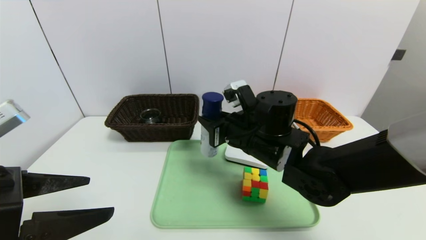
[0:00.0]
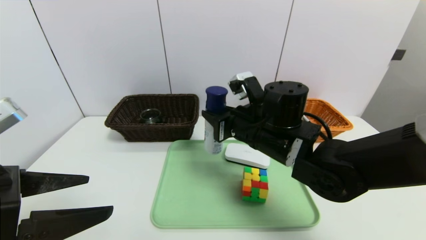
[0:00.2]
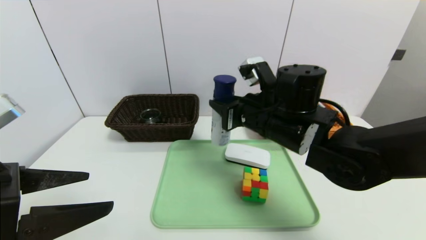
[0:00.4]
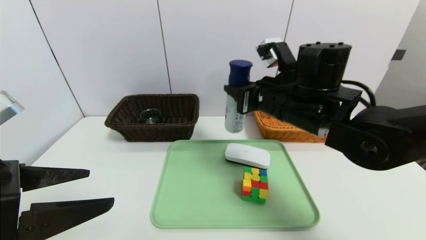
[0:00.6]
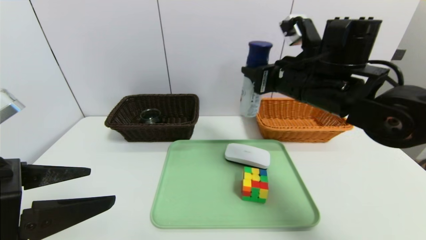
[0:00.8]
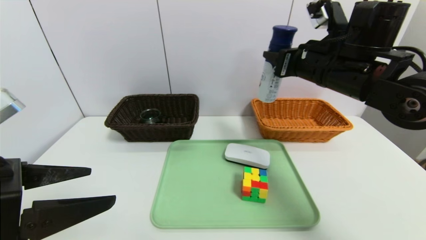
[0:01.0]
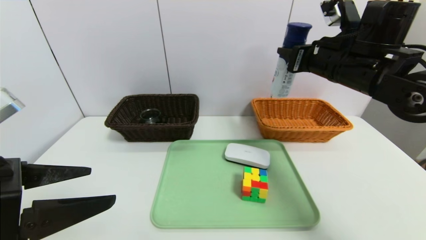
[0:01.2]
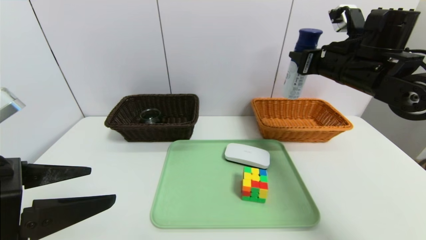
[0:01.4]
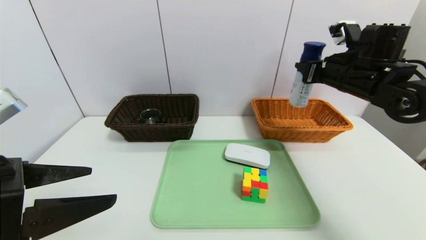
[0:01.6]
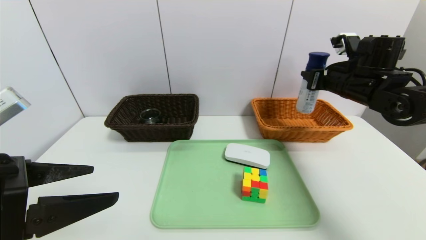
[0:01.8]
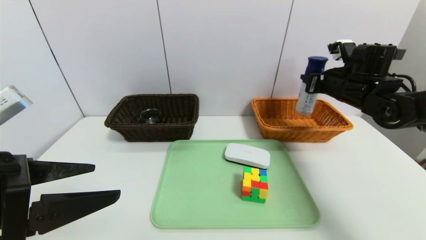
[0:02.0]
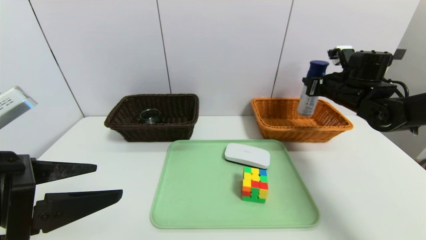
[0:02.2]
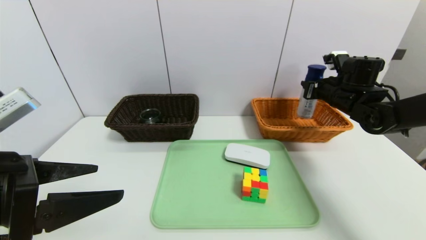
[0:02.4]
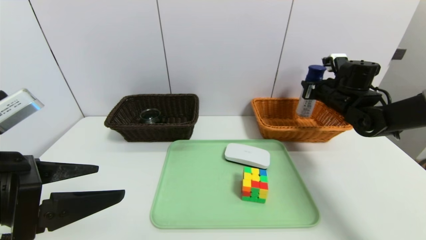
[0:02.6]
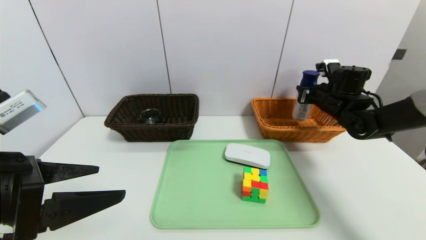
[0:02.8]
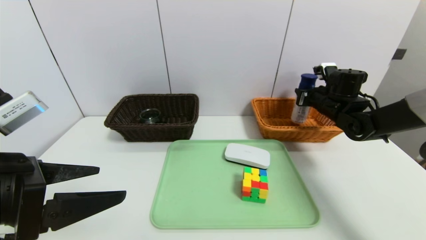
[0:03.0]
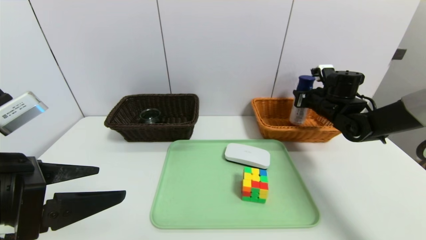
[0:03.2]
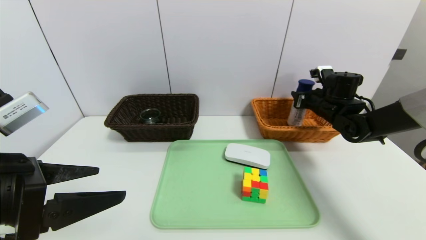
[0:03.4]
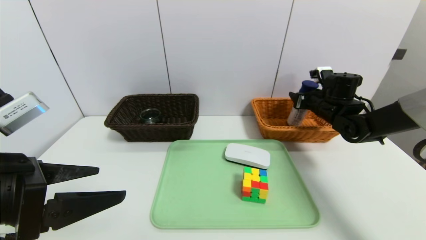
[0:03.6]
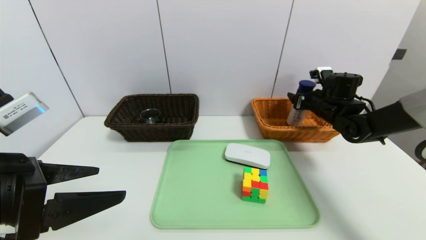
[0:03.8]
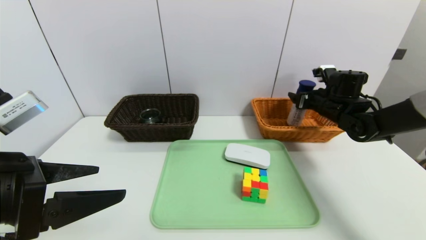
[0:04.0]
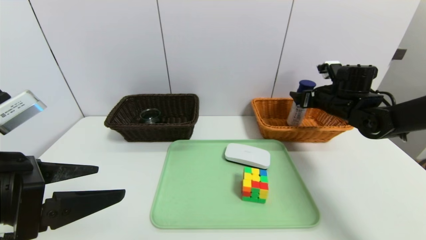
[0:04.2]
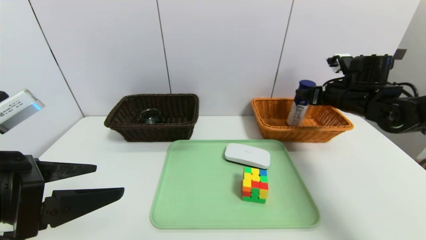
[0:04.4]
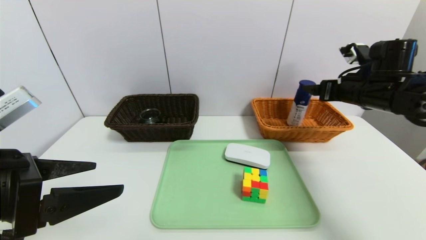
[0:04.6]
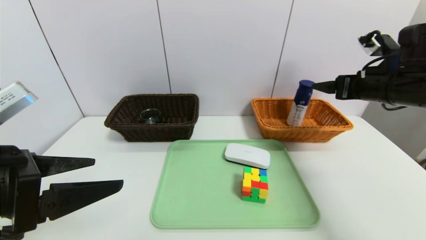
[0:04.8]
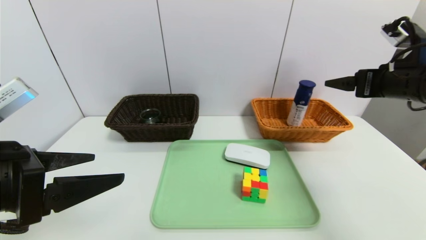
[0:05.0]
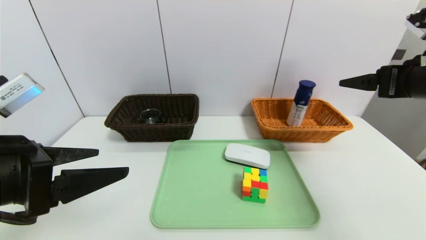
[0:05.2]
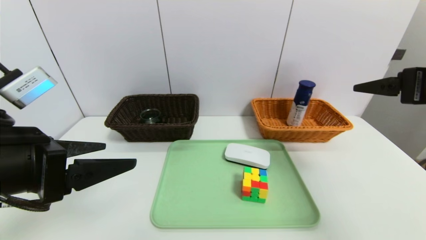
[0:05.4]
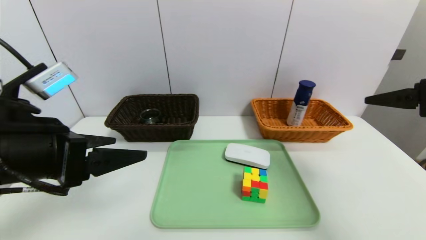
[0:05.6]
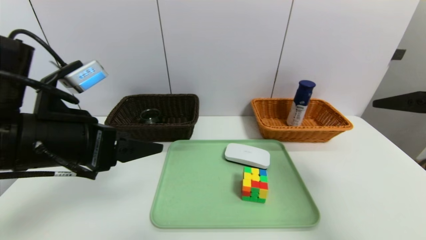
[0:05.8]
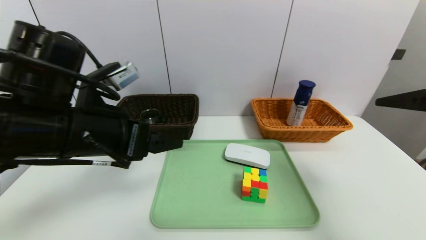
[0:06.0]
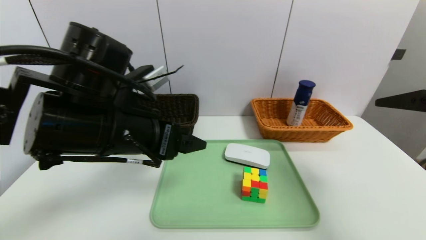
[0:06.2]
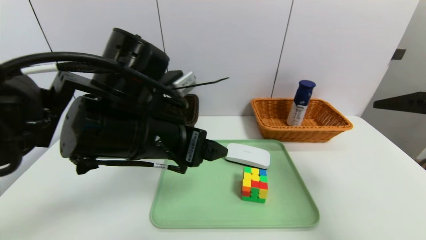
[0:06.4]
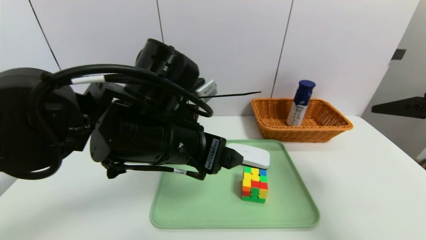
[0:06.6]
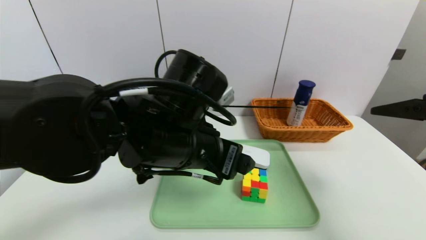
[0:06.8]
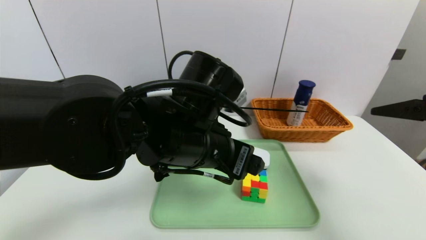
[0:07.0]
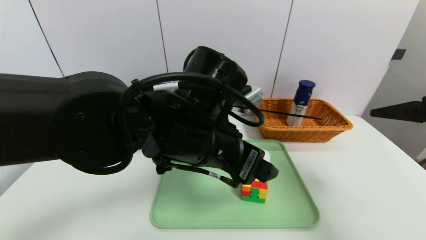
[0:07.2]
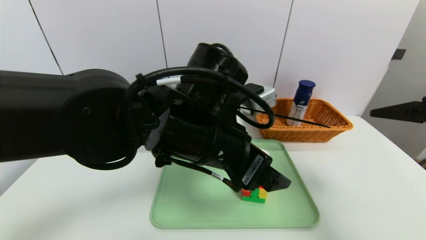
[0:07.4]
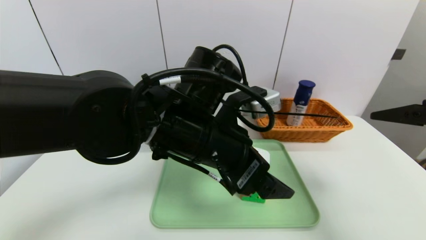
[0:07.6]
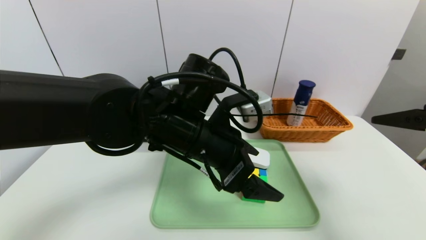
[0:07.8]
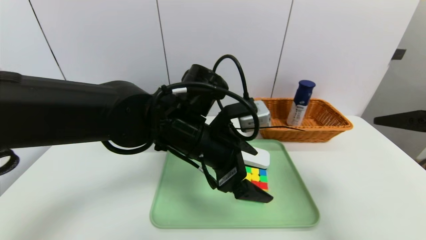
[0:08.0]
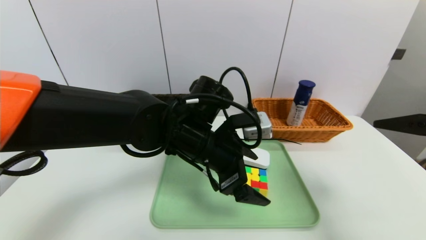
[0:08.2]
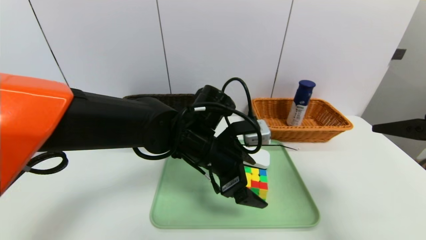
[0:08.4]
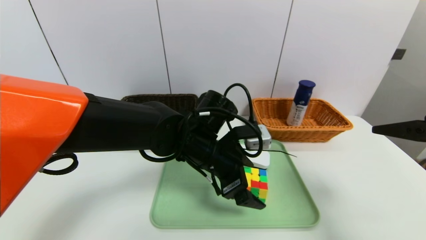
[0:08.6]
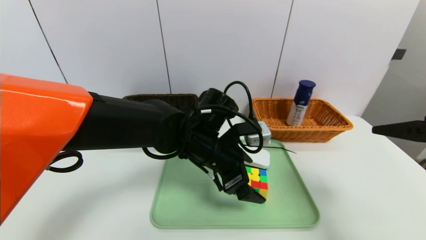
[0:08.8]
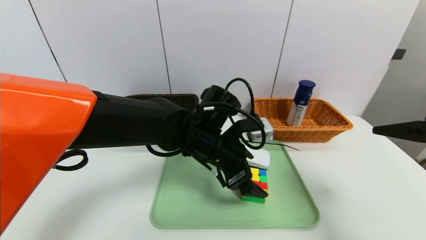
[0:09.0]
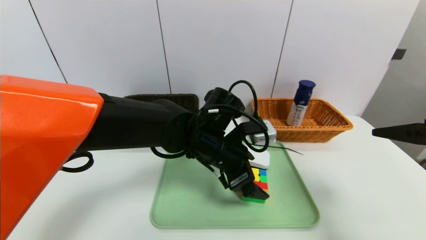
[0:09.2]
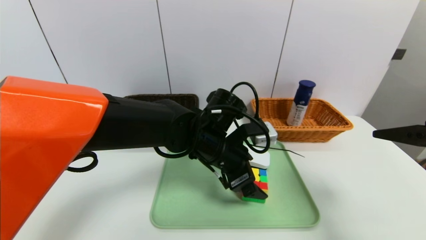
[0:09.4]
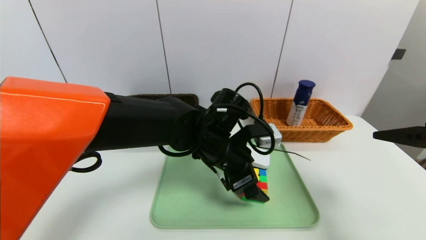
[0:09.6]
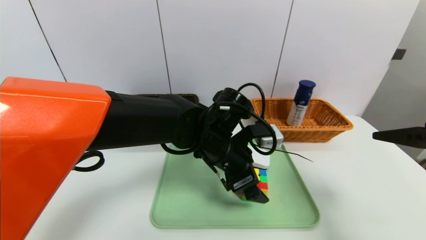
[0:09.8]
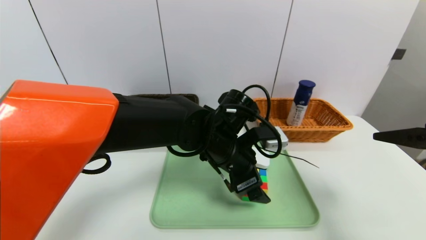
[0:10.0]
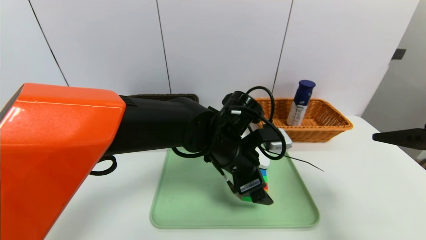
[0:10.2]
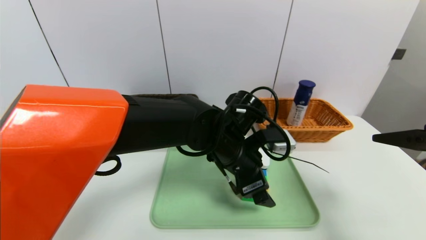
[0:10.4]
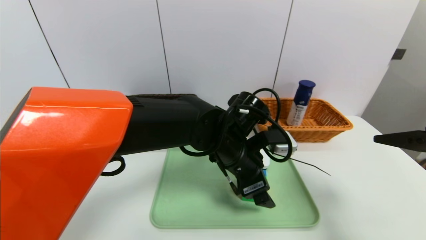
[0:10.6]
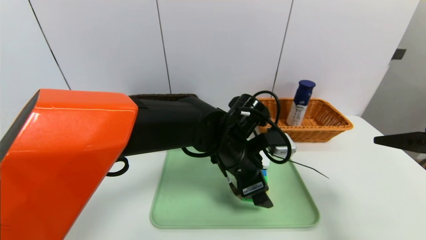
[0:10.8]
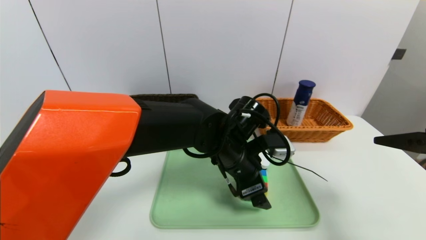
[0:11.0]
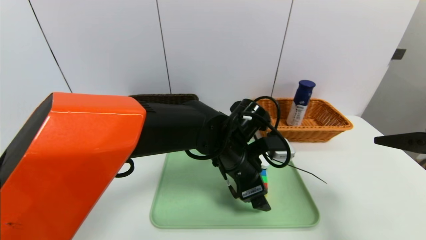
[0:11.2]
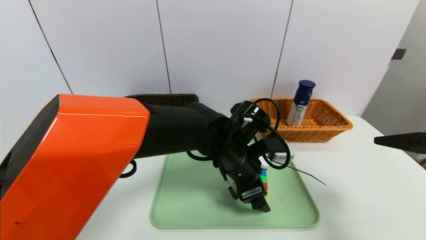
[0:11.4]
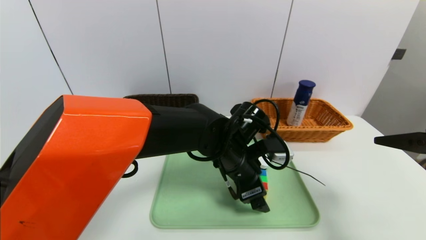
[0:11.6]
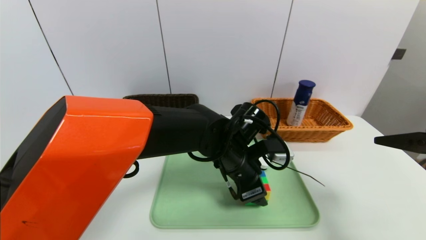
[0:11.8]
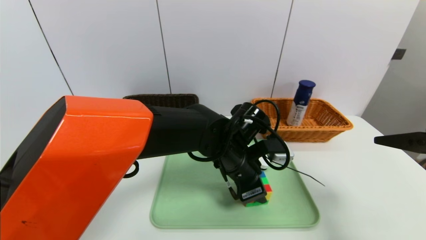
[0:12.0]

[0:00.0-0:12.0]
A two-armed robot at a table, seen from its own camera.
Task of the whole recording: place the food in the right basket with the right gripper, and place the non food items in the left basket with the left gripper.
Step, 0:00.0 to 0:03.8: Grasp the yogurt and put it in the right basket.
0:00.0 to 0:01.6: The right gripper shifts some 20 cm to the right and upward.
0:01.6 to 0:03.0: The right gripper travels downward and forward by approximately 10 cm.
0:03.0 to 0:04.4: The right gripper moves backward, about 5 cm, and opens its fingers.
0:04.4 to 0:06.0: The right gripper goes some 25 cm backward and upward; the left gripper shifts roughly 10 cm forward and to the right.
0:06.0 to 0:07.6: The left gripper travels to the right by some 15 cm.
0:07.6 to 0:09.0: The left gripper goes some 10 cm downward and forward.
0:09.0 to 0:10.4: The grippers make only small movements.
0:10.4 to 0:12.0: The left gripper closes.

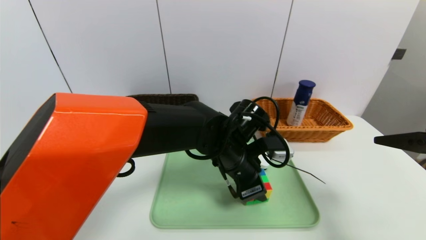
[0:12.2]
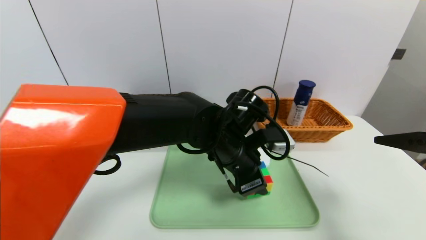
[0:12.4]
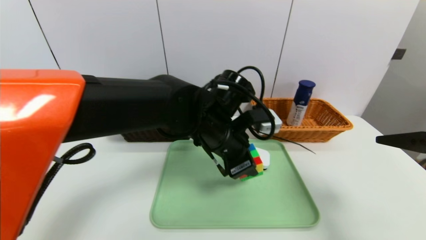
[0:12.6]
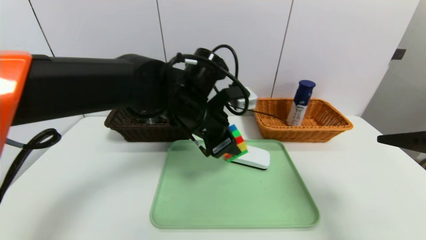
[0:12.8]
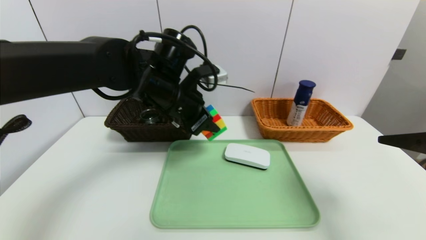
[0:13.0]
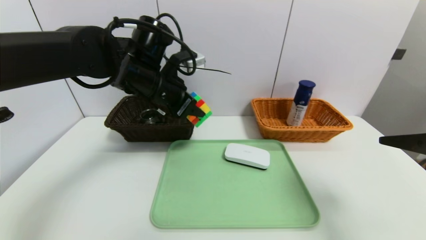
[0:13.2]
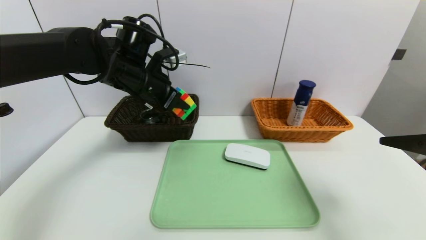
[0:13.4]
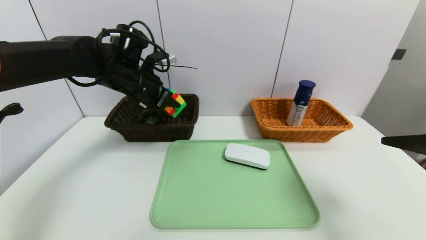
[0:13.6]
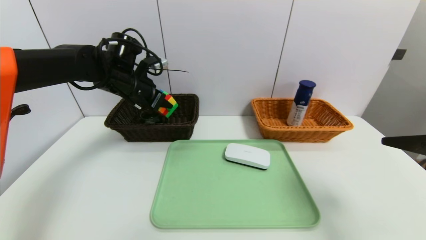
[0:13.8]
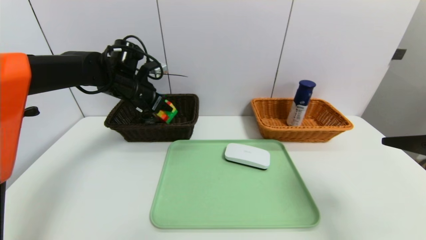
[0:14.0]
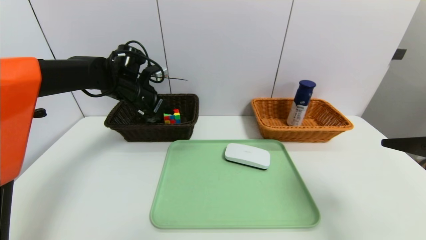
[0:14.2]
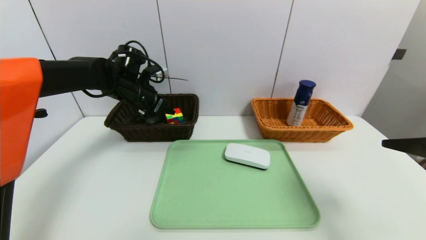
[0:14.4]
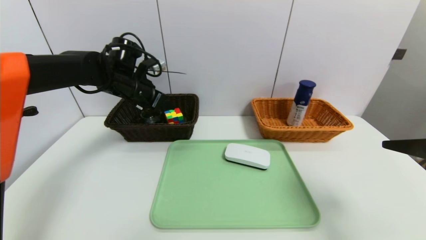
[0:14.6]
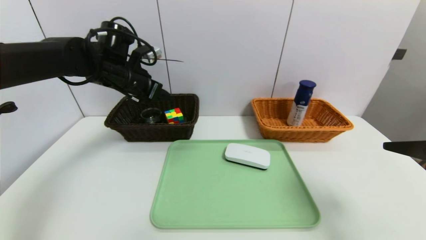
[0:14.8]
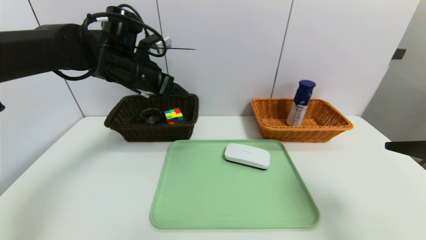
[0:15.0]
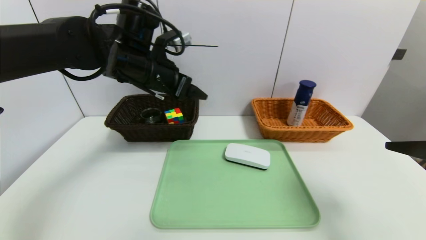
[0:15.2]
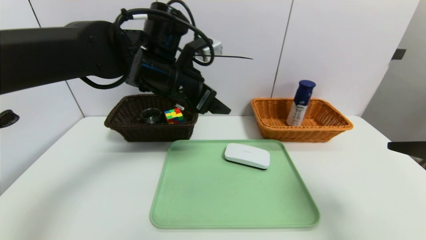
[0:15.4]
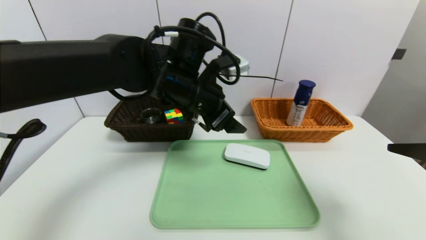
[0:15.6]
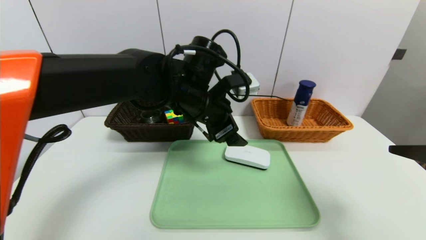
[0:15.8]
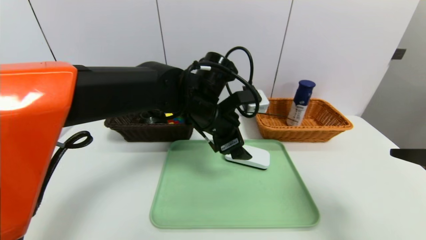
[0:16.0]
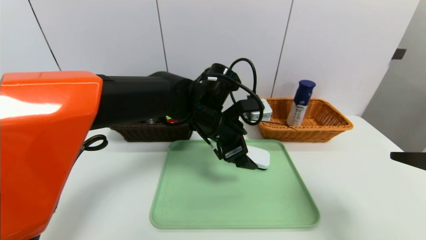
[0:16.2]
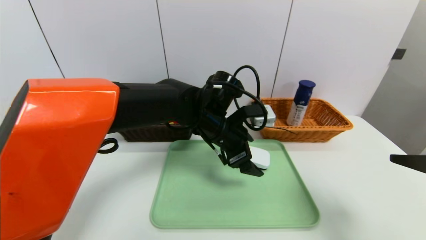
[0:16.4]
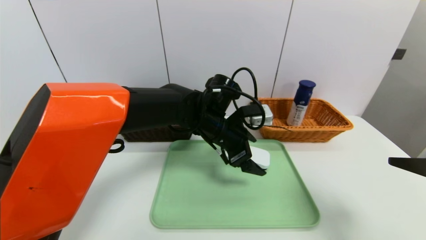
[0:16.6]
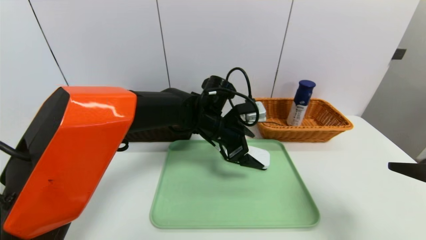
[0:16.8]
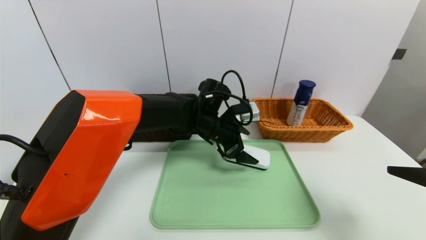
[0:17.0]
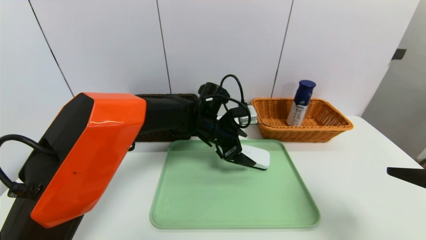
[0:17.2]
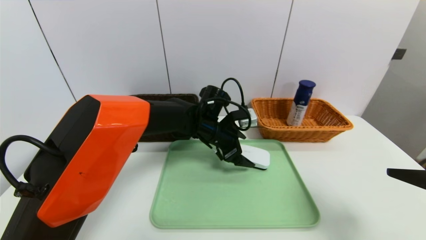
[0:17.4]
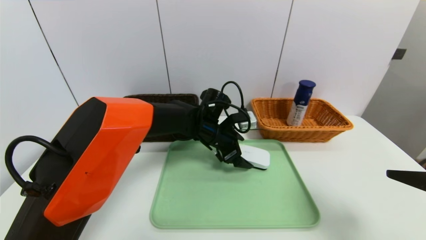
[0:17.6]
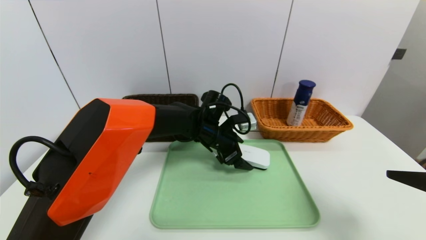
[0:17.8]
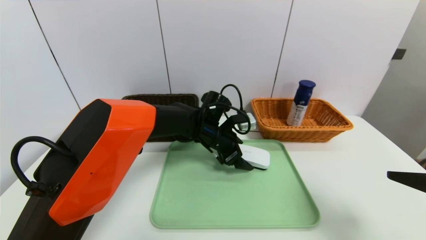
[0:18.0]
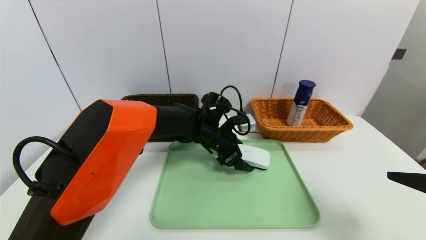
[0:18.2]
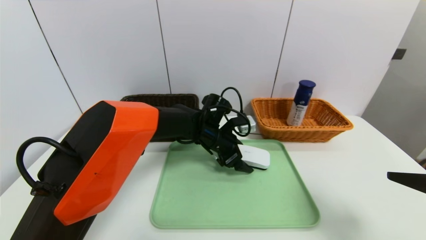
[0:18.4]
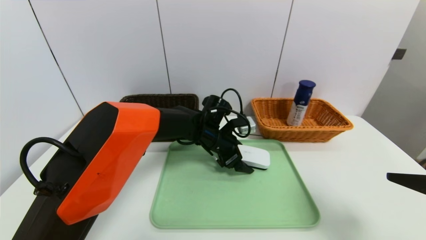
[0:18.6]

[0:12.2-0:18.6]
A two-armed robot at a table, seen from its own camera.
Task of the whole recording: place the food in the right basket with the right gripper, and place the non food items in the left basket with the left gripper.
Step, 0:12.2 to 0:14.6: Grasp the rubiks cube and put it in the left basket.
0:12.2 to 0:13.8: The left gripper goes about 25 cm to the left and forward.
0:13.8 to 0:15.4: The left gripper goes approximately 15 cm to the right and backward, and opens up.
0:15.4 to 0:17.0: The left gripper moves downward, to the right and forward, about 15 cm.
0:17.0 to 0:18.6: There are only small adjustments of the grippers.
